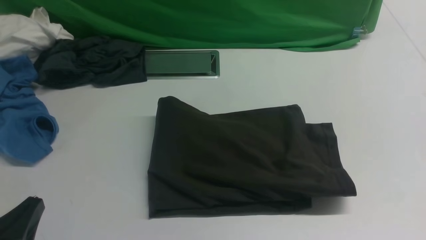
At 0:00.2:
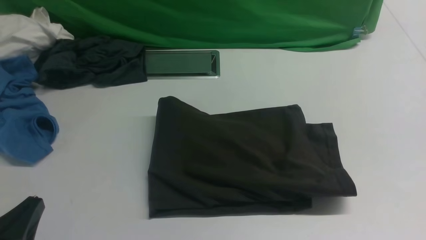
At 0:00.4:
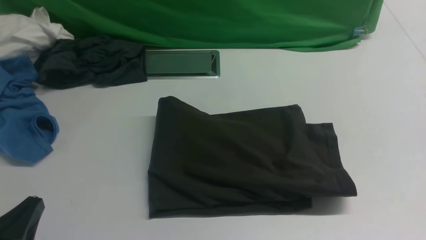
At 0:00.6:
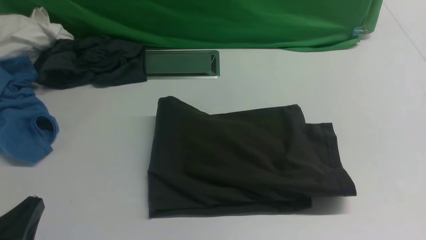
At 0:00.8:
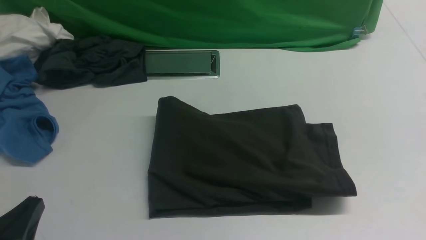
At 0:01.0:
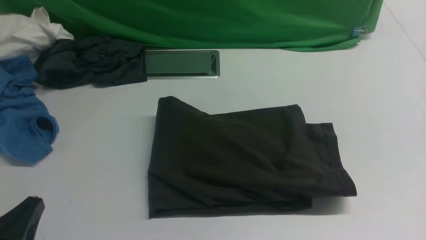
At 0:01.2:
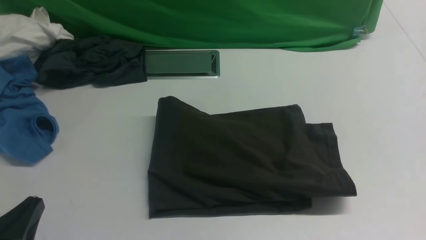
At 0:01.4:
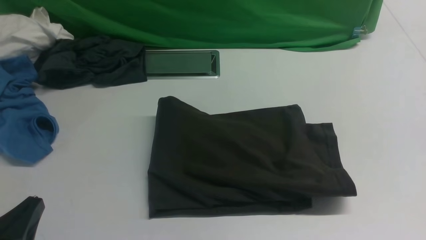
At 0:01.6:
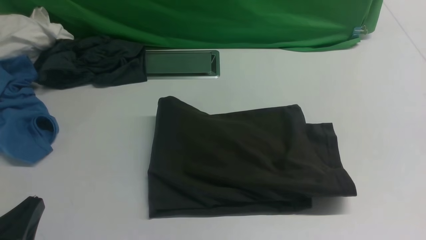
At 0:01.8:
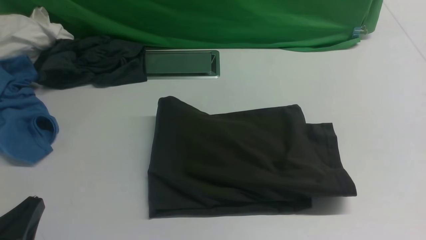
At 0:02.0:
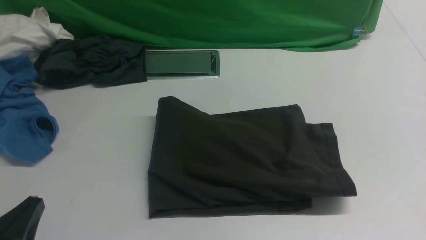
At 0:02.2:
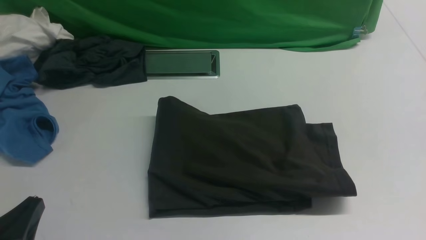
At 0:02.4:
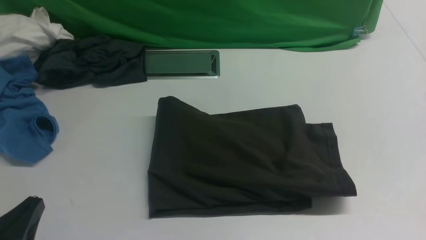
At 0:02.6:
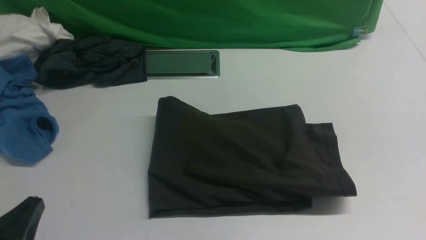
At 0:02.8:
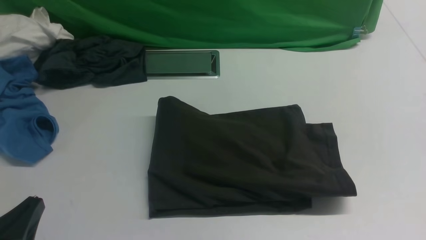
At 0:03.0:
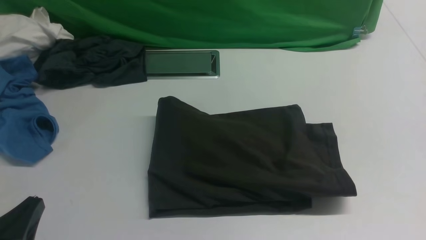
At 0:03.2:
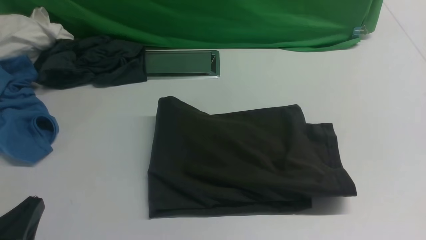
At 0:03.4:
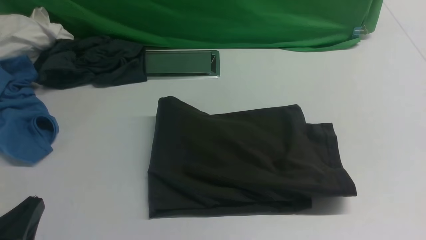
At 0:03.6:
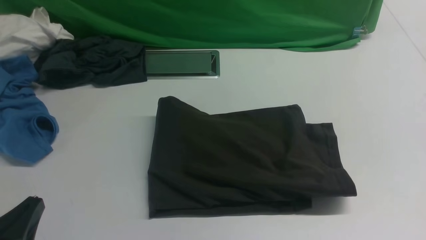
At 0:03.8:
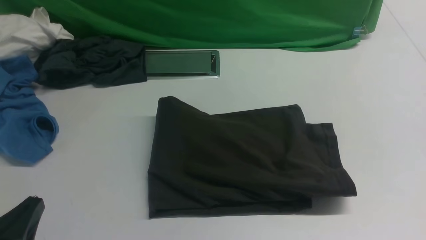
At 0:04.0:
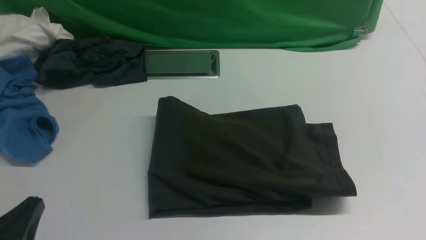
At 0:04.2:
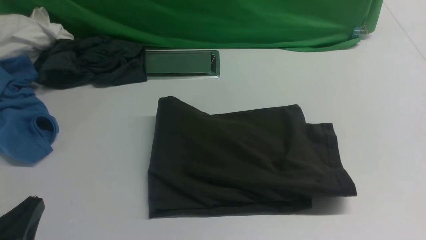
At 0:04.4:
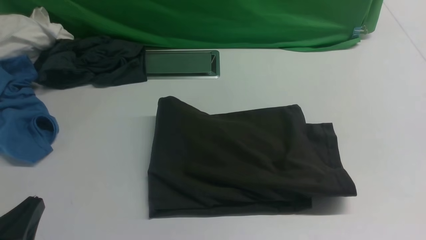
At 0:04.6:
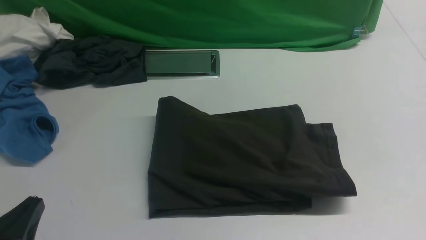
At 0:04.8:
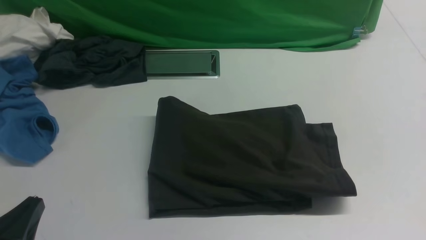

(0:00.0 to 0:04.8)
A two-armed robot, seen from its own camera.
0:01.6 - 0:04.8: Both grippers stay about where they are.
